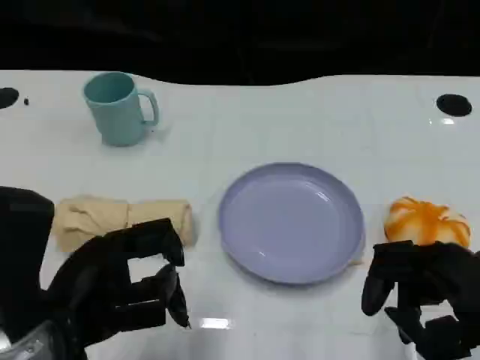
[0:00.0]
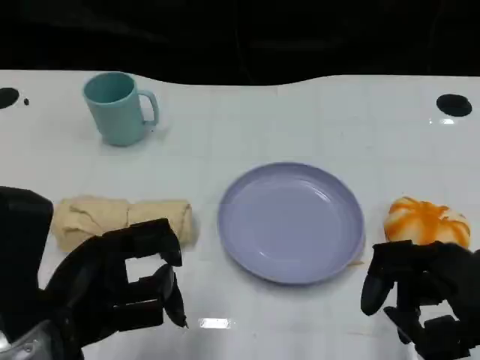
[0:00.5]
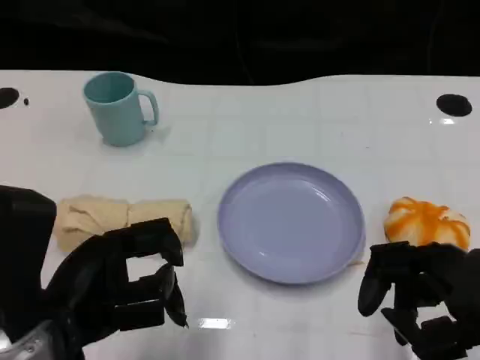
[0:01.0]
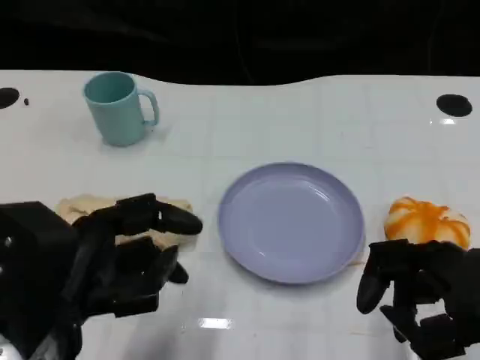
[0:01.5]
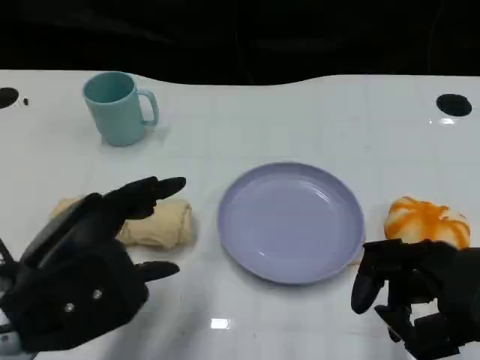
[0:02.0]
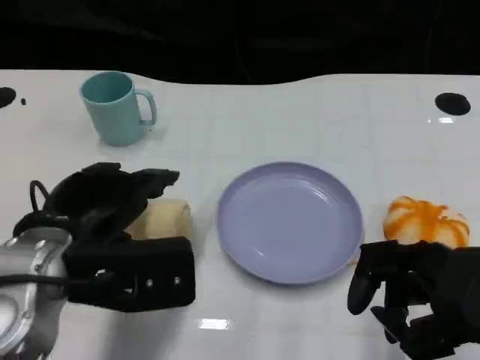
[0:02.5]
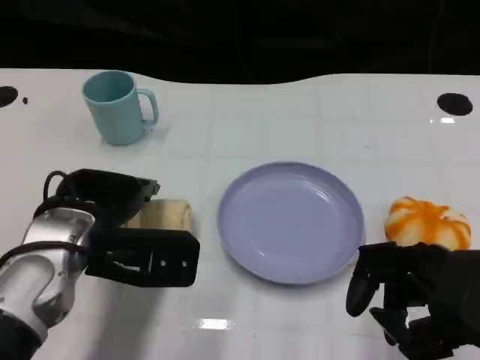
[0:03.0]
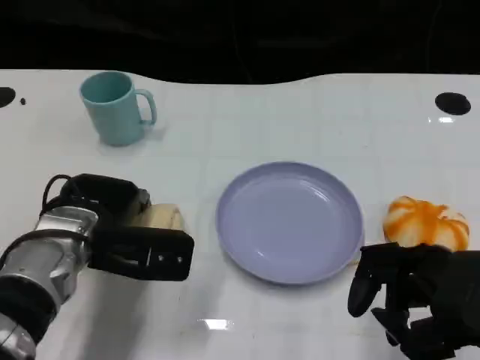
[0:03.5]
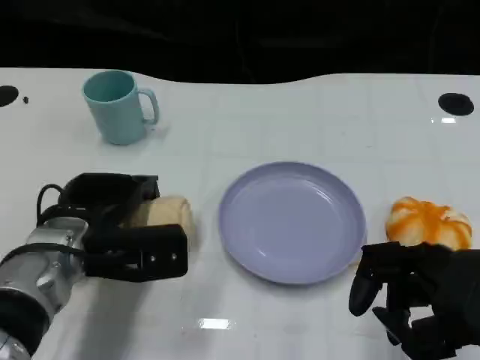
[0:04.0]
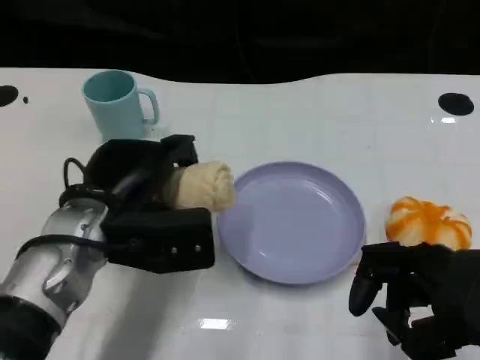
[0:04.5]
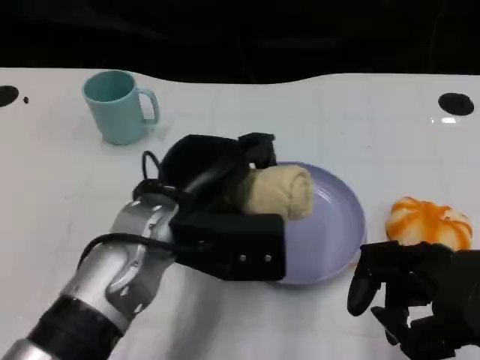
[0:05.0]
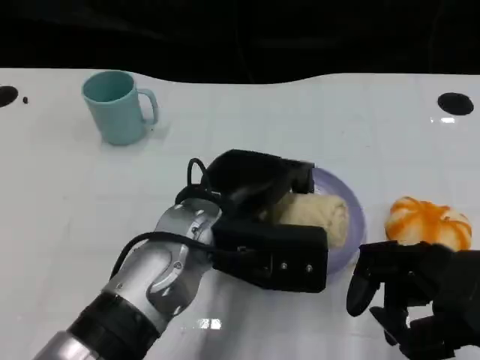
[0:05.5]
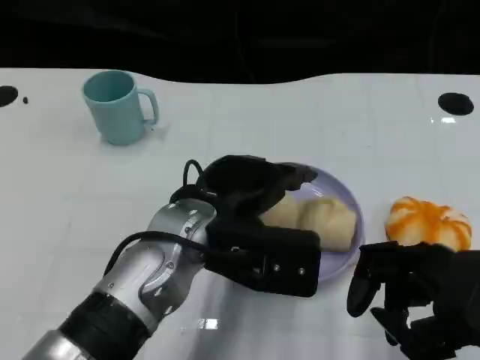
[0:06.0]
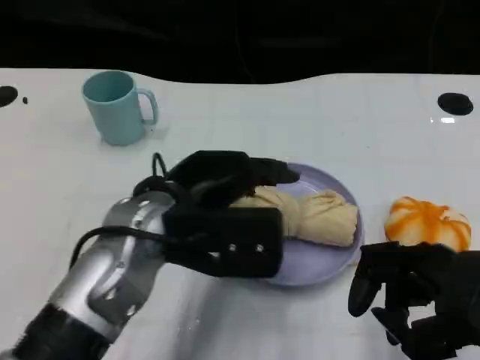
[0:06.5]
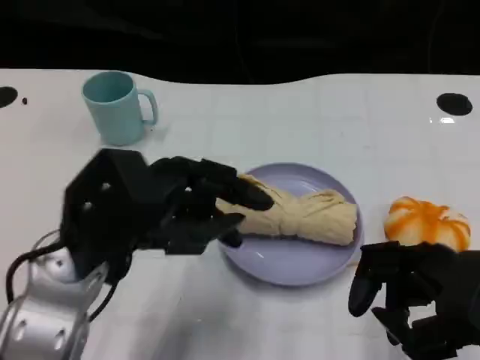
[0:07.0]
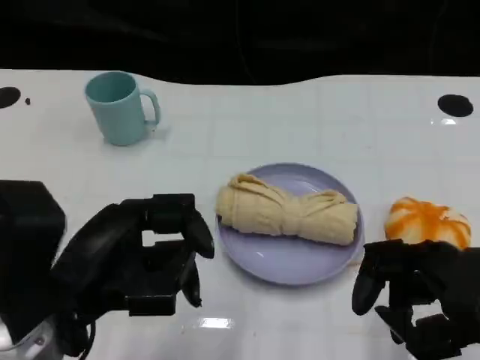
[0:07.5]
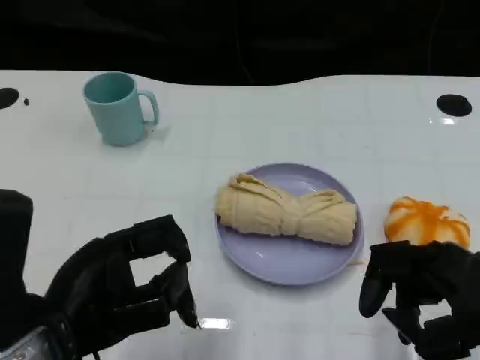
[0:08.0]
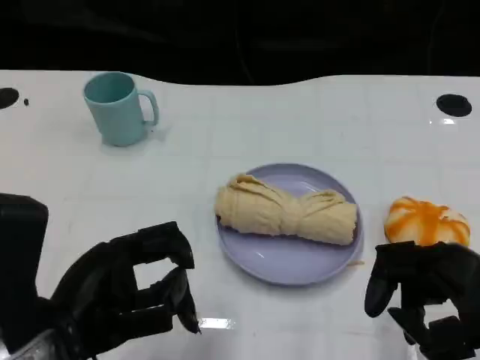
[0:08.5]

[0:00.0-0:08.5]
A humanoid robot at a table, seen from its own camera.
Task of the whole recording: Grasp the towel on the left side of the plate with the left hand and place it into the plate.
2.0 to 4.0 s: The left hand heads forward and downward, covering about 15 cm.
4.0 to 6.5 s: The left hand shifts about 10 cm upward and to the right.
6.5 to 8.5 s: The left hand shifts roughly 15 cm backward and to the left.

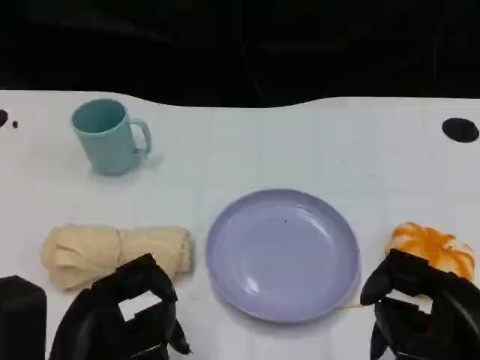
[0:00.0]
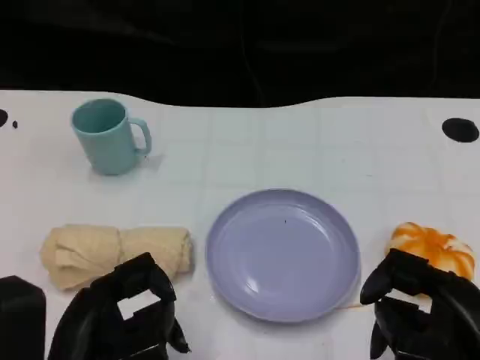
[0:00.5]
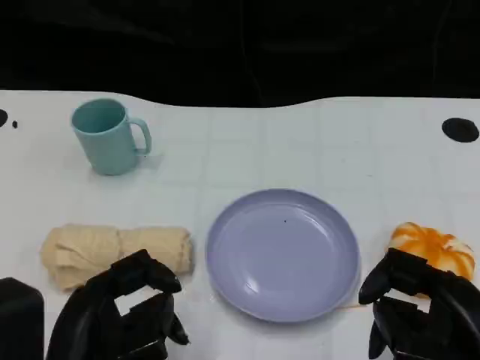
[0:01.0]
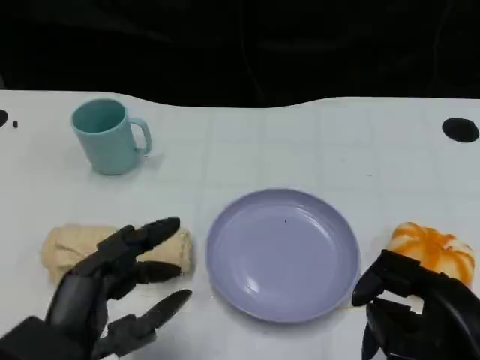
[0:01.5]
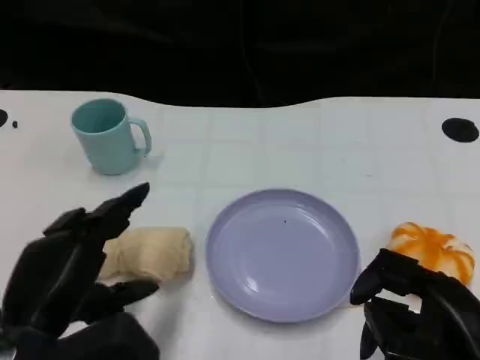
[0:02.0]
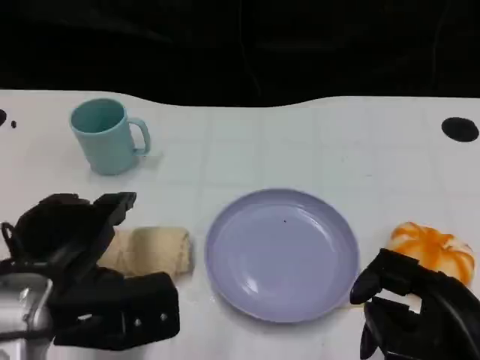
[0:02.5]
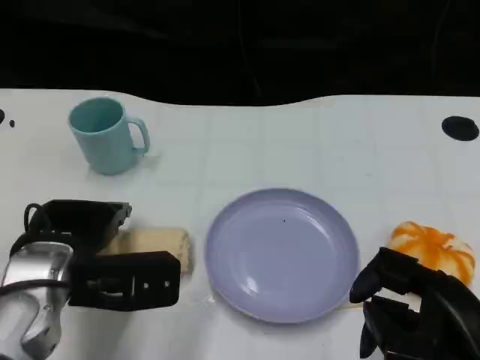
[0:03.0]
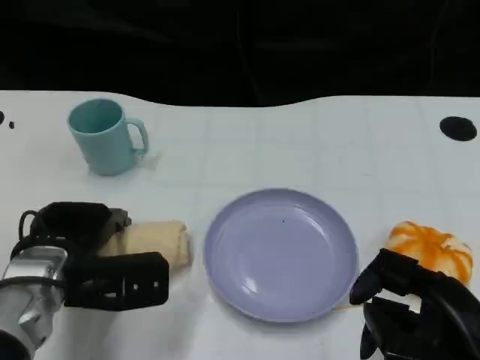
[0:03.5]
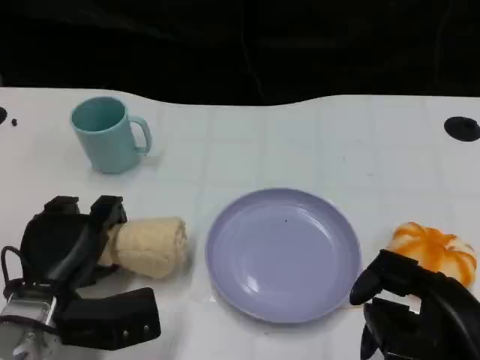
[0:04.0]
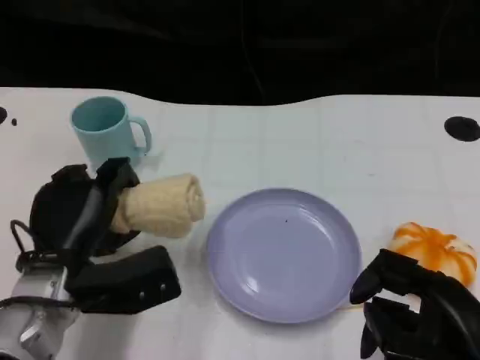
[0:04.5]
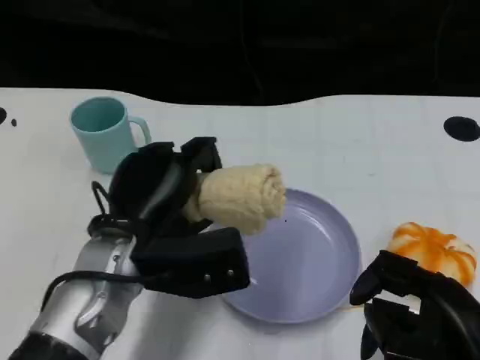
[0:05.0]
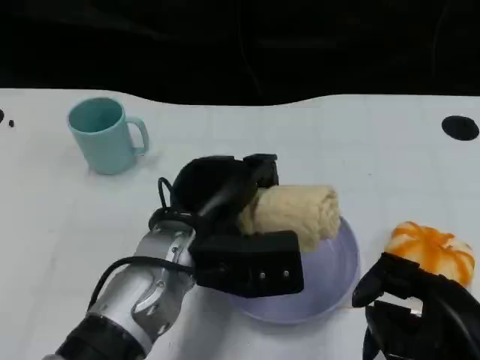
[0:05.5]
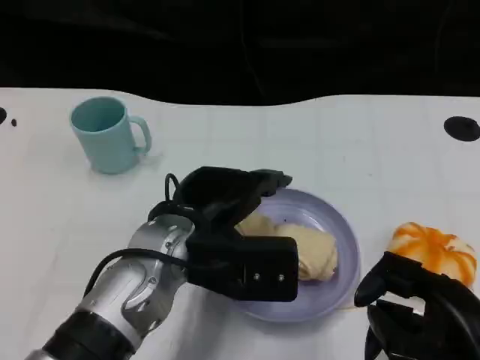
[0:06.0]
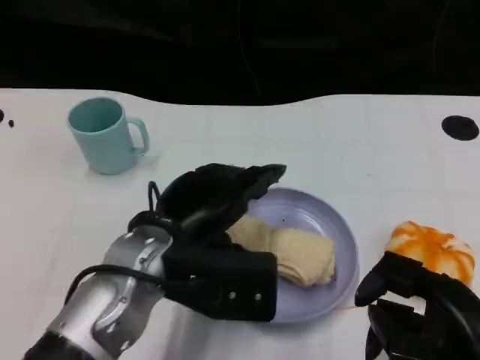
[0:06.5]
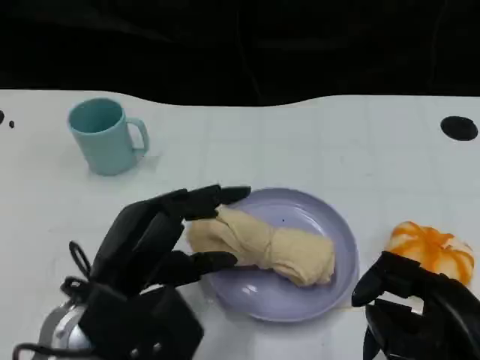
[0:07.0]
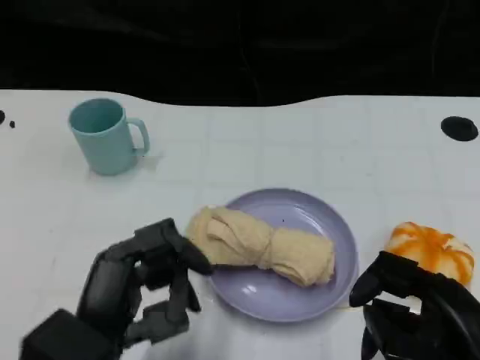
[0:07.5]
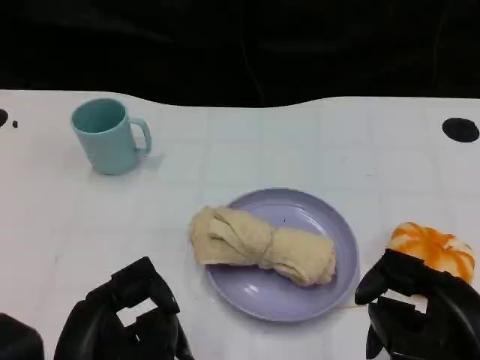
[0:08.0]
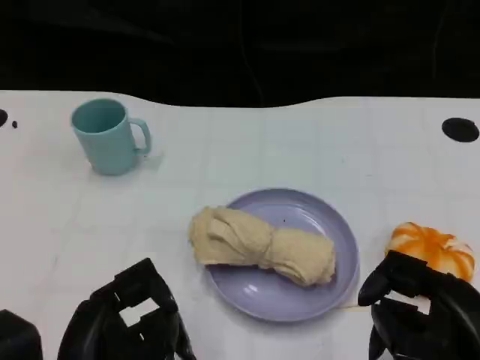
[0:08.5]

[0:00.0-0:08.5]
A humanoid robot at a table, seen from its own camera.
Task of the whole recording: Grasp the towel on the left side of the plate with the left hand and place it into the plate.
2.0 to 4.0 s: The left hand moves downward and forward, roughly 15 cm.
4.0 to 6.5 s: The left hand heads to the right and upward, covering approximately 15 cm.
6.5 to 8.5 s: The left hand travels backward and to the left by some 15 cm.

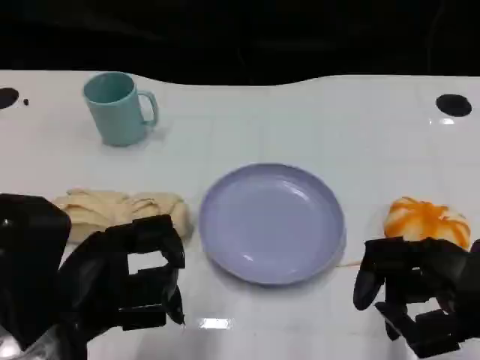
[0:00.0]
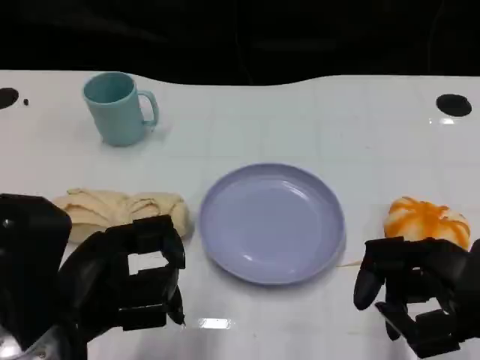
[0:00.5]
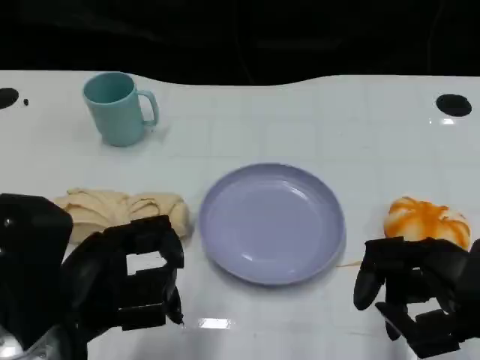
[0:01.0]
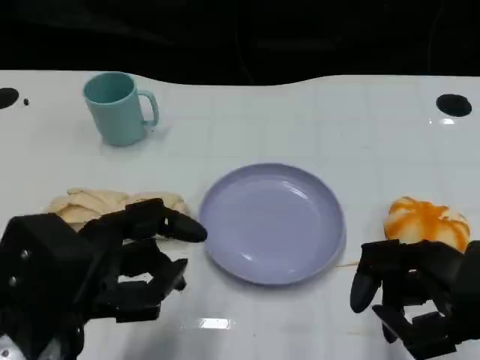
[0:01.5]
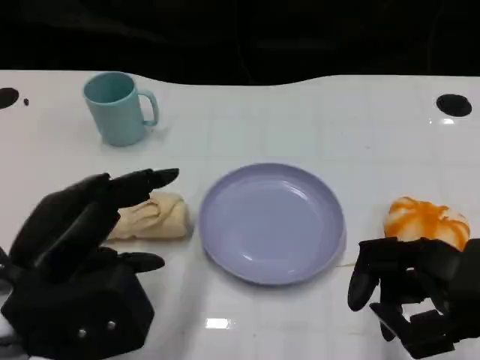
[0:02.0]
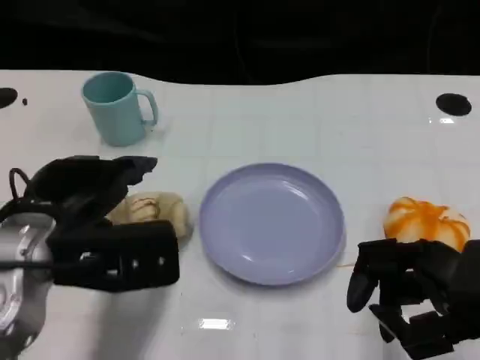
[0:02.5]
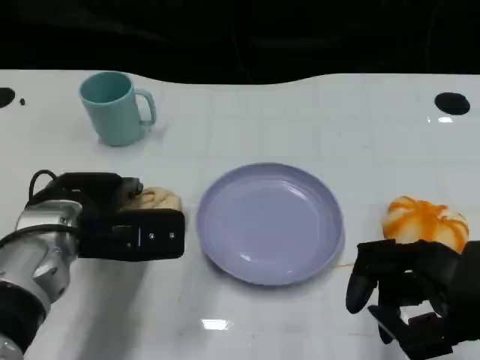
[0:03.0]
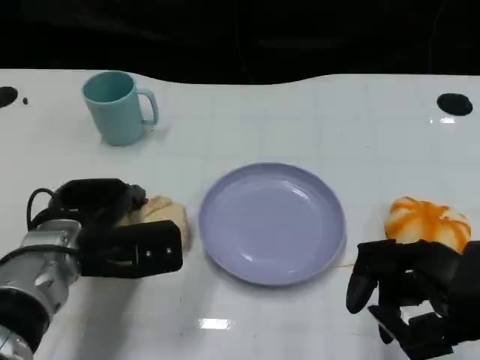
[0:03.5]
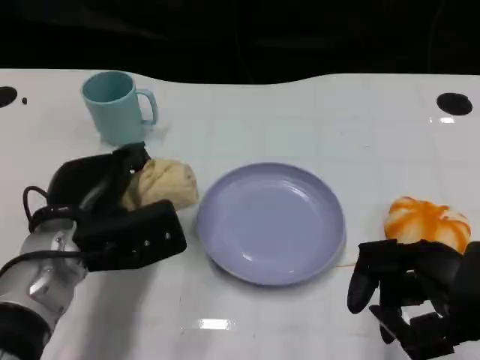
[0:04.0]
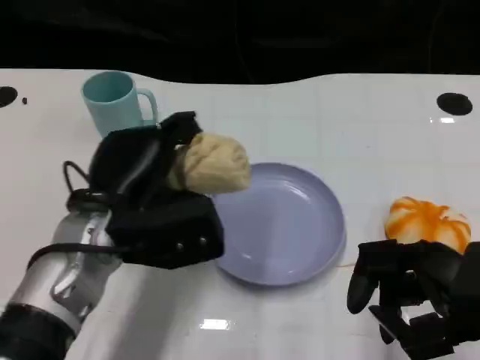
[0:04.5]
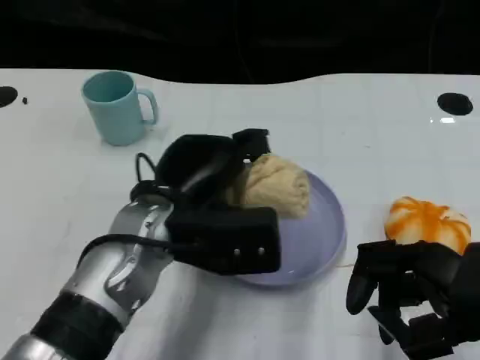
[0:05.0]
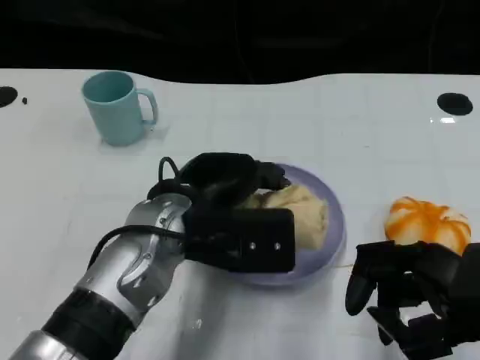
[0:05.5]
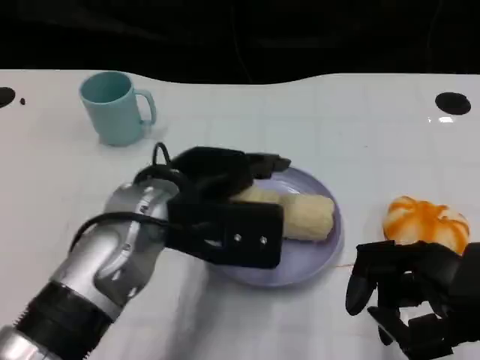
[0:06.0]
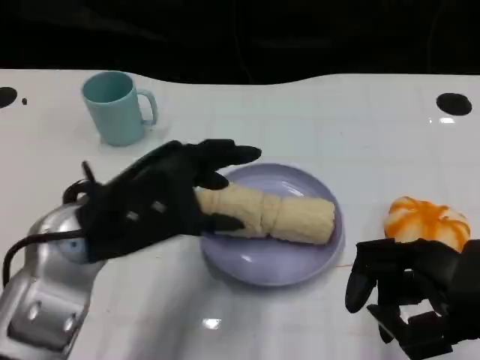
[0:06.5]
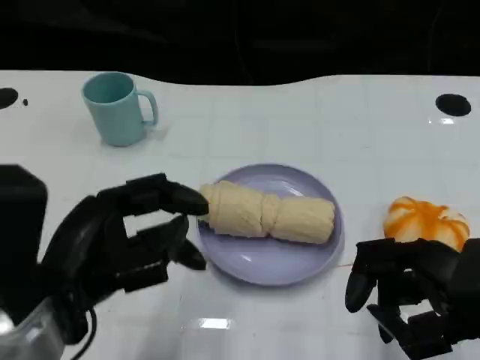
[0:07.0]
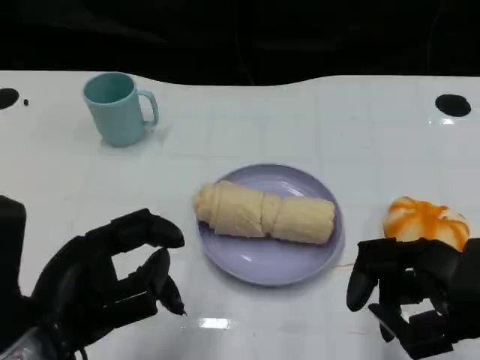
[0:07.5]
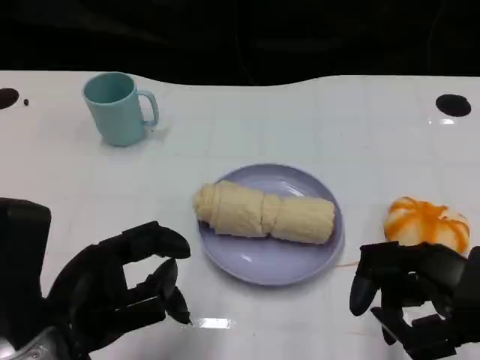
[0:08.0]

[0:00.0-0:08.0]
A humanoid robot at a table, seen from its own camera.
Task of the whole recording: Grasp the towel on the left side of the plate with the left hand and place it into the plate.
2.0 to 4.0 s: The left hand goes about 10 cm forward and downward.
4.0 to 6.0 s: The left hand travels upward and to the right by roughly 10 cm.
6.0 to 8.0 s: The left hand moves backward and to the left, roughly 15 cm.

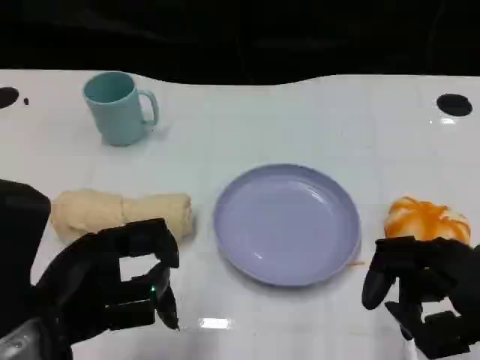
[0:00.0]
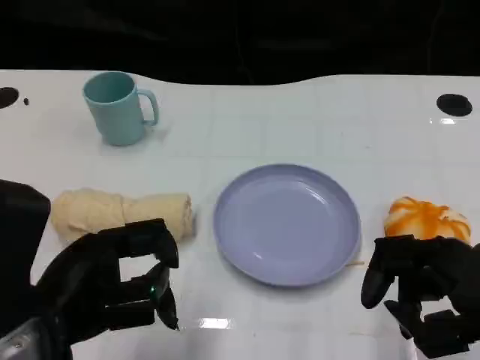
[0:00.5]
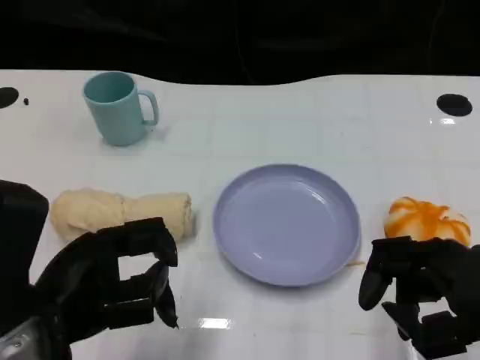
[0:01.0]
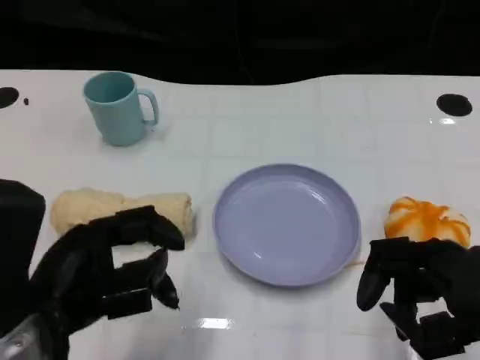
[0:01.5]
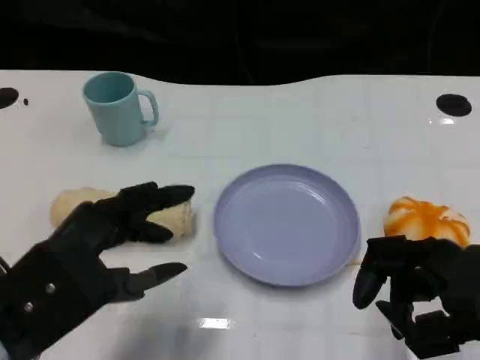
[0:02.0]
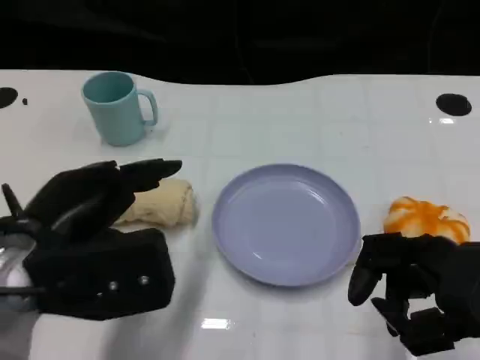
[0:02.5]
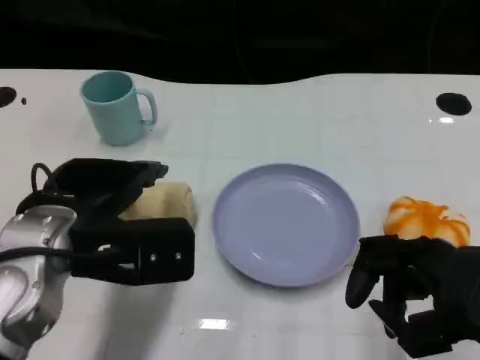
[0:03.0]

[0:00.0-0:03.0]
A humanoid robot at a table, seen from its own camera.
Task of the whole recording: Grasp the towel on the left side of the plate with the left hand and place it into the plate.
0.0 to 1.5 s: The hands move only a little.
1.5 to 3.0 s: The left hand goes about 10 cm forward.
